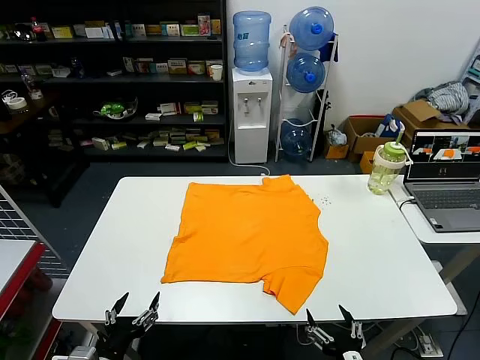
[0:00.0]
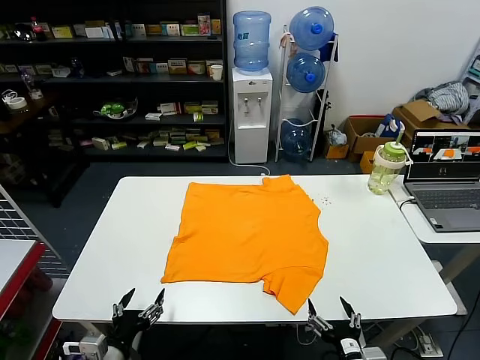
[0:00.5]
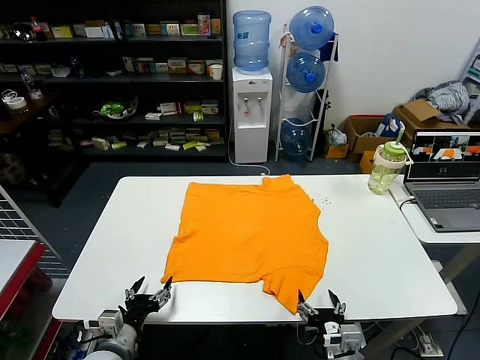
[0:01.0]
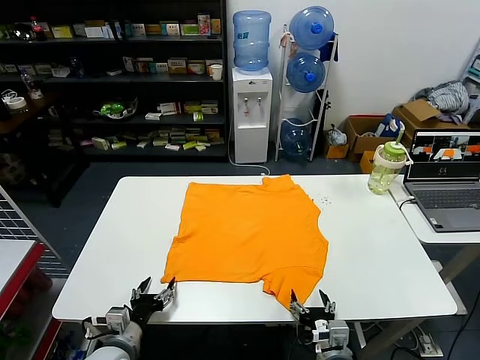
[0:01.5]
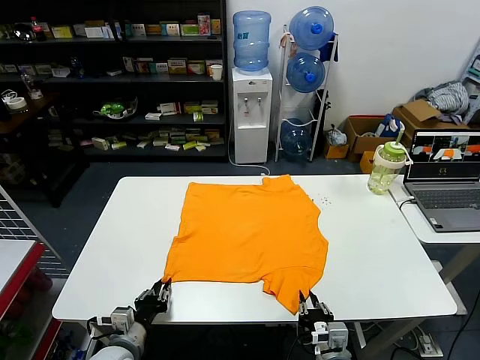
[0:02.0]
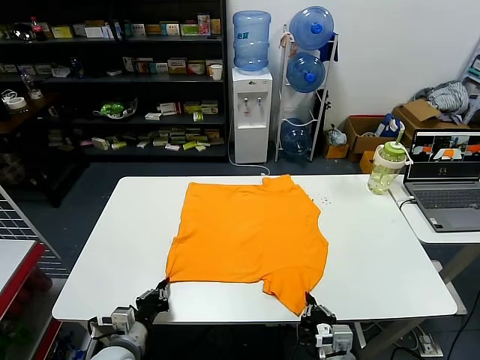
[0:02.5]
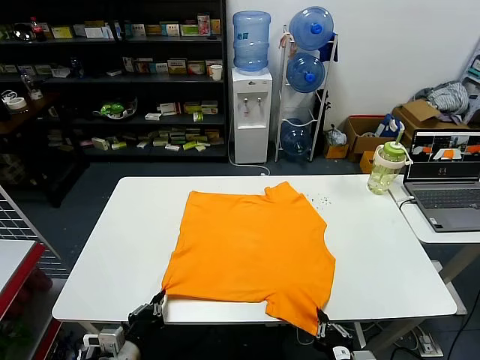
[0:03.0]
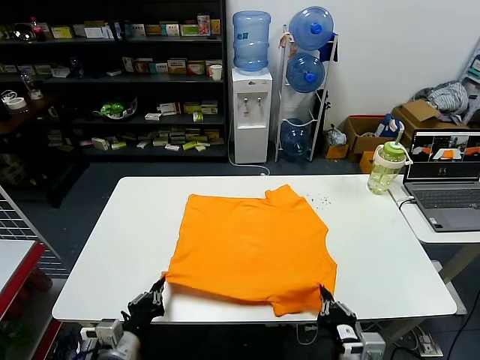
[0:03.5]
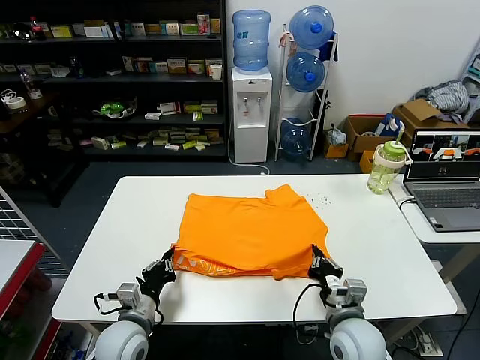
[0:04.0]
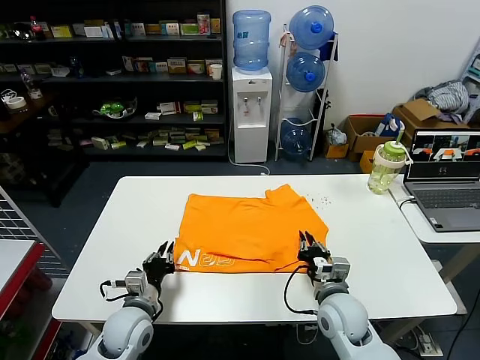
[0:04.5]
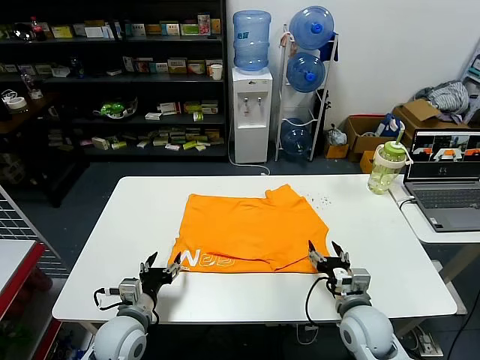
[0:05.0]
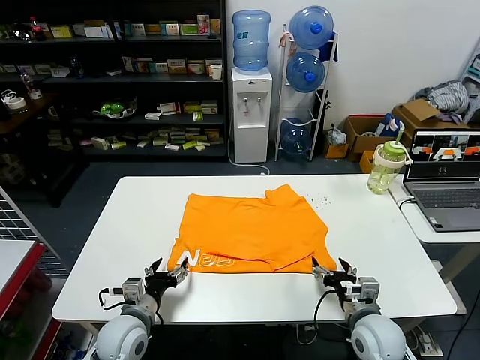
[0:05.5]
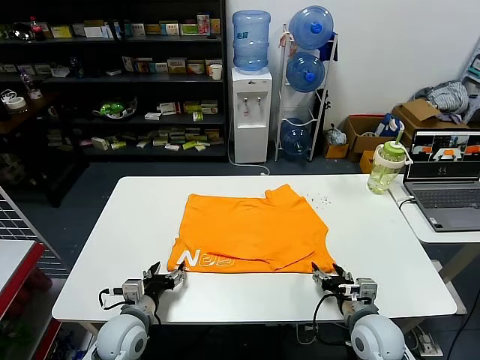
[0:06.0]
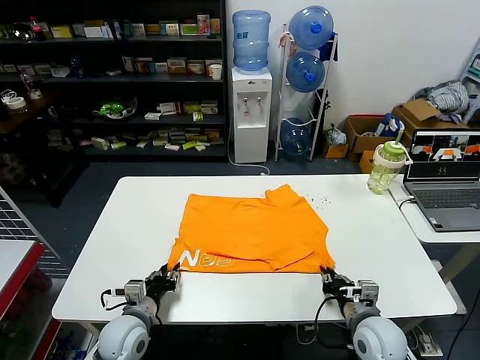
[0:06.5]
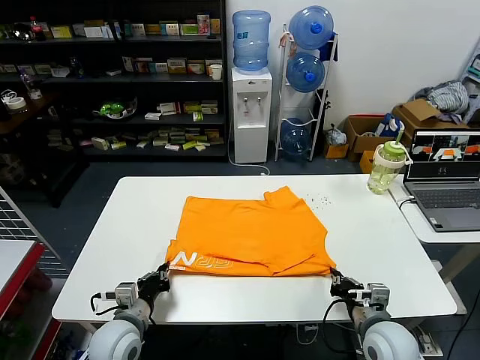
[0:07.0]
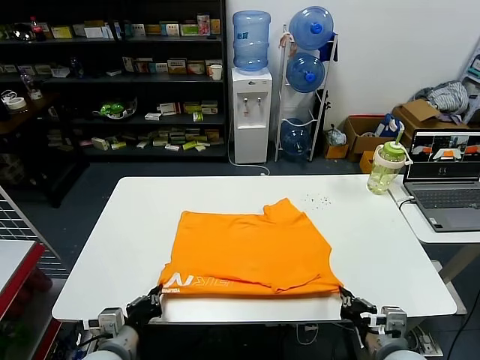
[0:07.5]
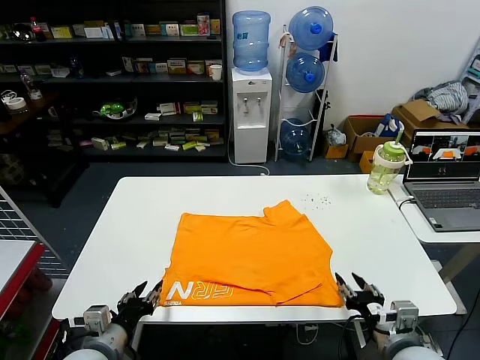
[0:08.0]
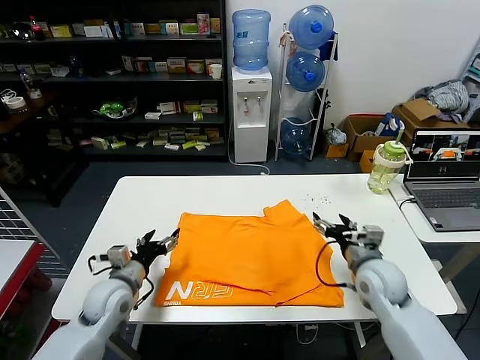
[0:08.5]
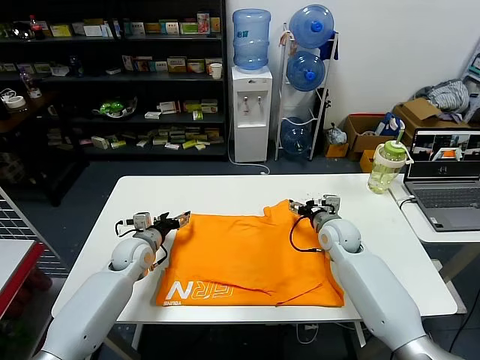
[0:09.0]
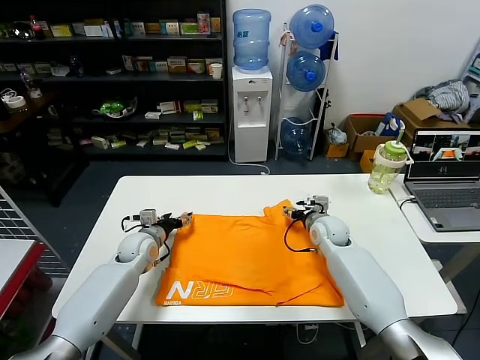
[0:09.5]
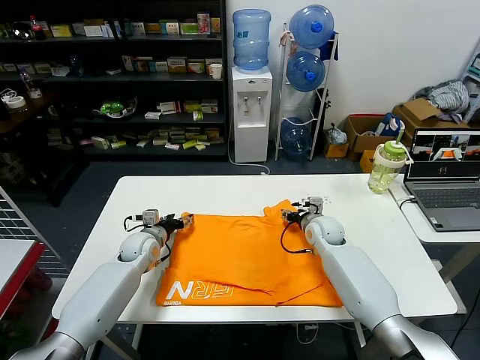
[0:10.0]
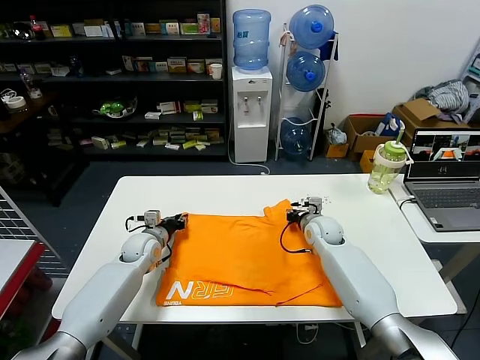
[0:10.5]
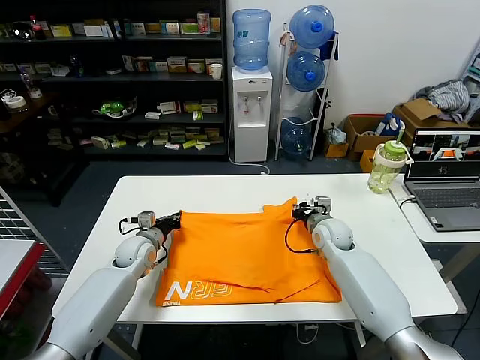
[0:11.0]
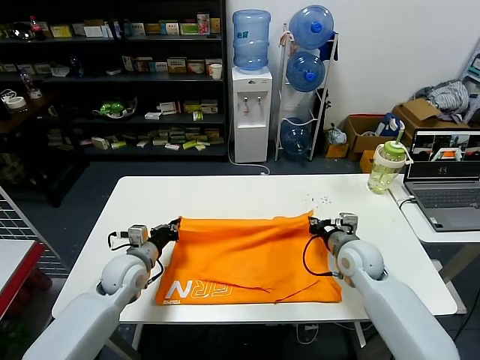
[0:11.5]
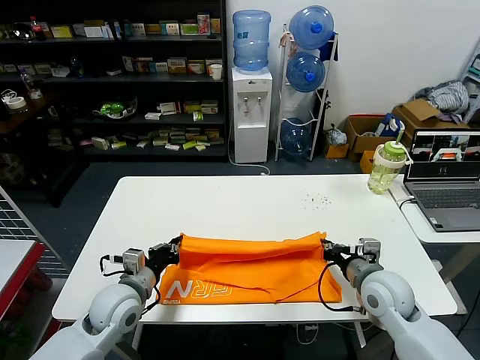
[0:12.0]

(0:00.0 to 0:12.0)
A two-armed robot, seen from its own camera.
Task of the whole recording: fold and organize the clothes.
Step, 0:00.0 - 0:02.0: use both grippers simultaneously to clamp the lower edge of the clothing fabric.
Step, 0:02.5 - 0:04.5: use both grippers to drag the lower edge of the fabric forward and fold it over the upper edge.
Step, 0:05.0 - 0:07.5: Drag the clothes downward with both gripper.
Step, 0:08.0 - 0:10.5: use both grippers simultaneously to clamp the upper edge of the clothing fabric.
0:02.0 - 0:04.0: The left gripper changes place by roughly 5 cm; the right gripper moves forward and upward, some 10 cm.
0:04.0 - 0:06.0: The right gripper travels to the right by approximately 5 cm, and opens, while the left gripper opens its fingers.
0:06.0 - 0:08.0: The right gripper shifts about 10 cm upward and backward, and closes, then reopens. The left gripper travels backward and upward by roughly 10 cm, and closes.
0:08.0 - 0:10.0: Both grippers move forward, some 30 cm.
0:10.0 - 0:12.0: Both grippers move backward, approximately 20 cm. The left gripper closes up. Meanwhile the right gripper closes up.

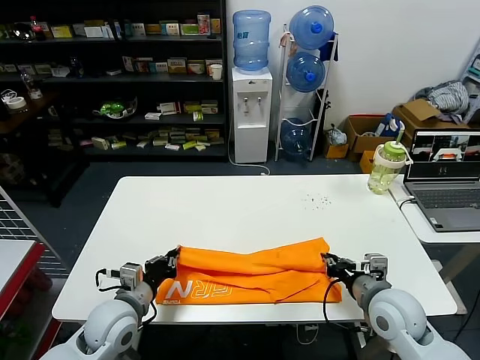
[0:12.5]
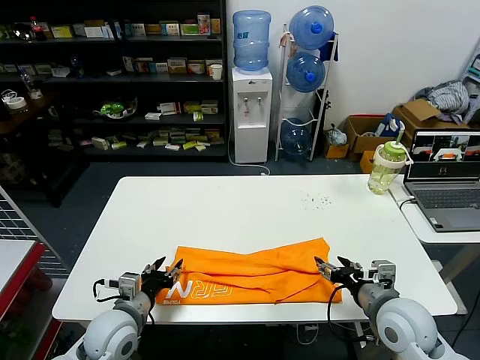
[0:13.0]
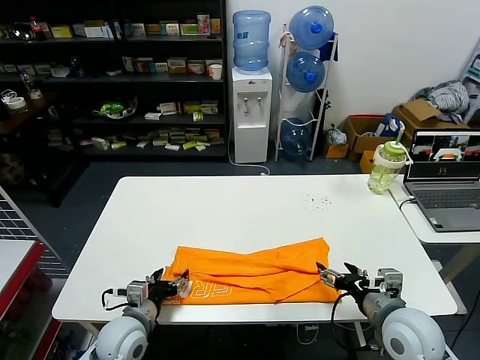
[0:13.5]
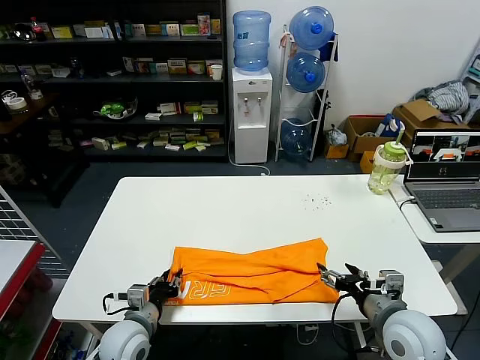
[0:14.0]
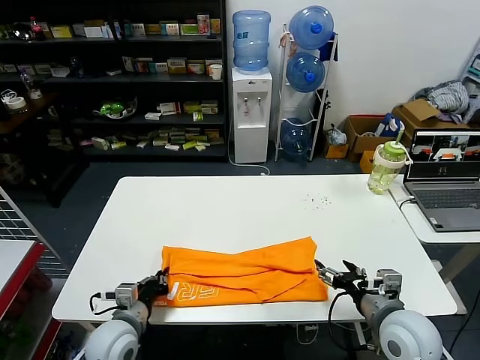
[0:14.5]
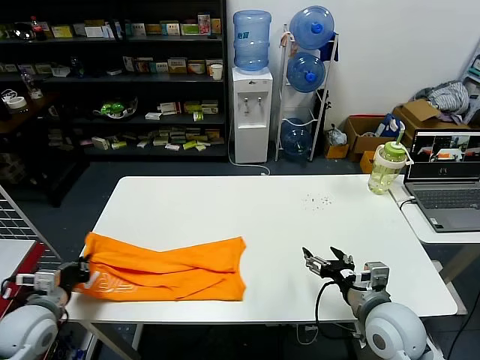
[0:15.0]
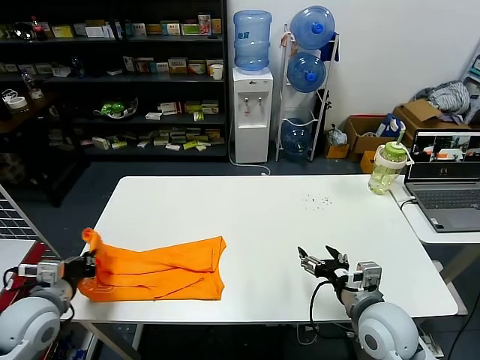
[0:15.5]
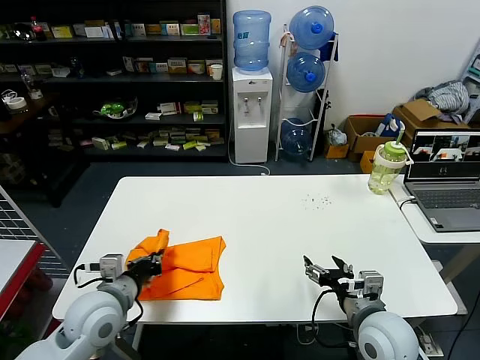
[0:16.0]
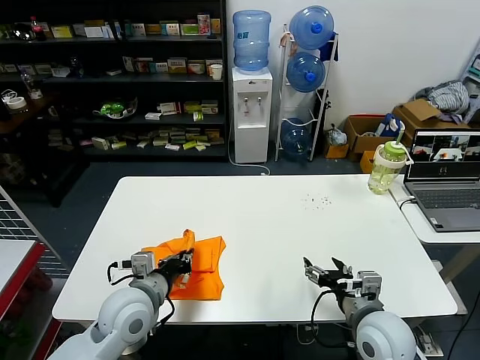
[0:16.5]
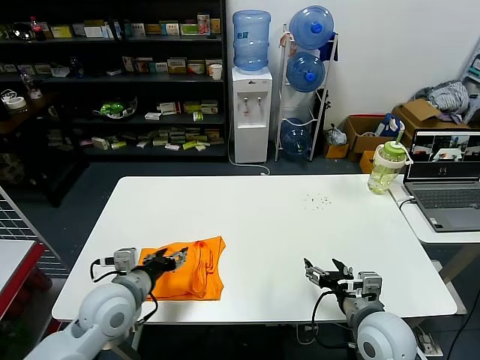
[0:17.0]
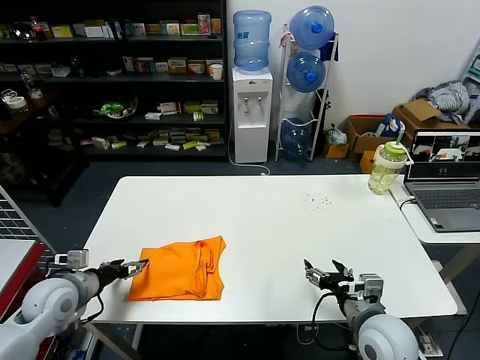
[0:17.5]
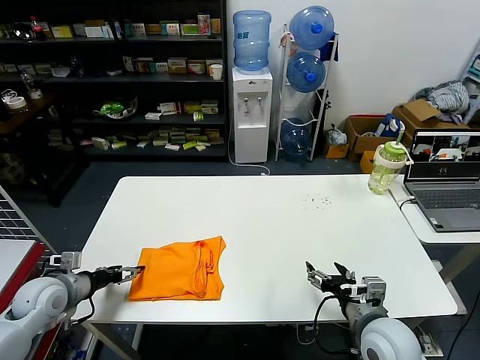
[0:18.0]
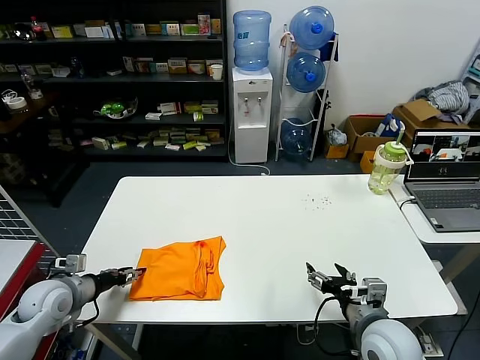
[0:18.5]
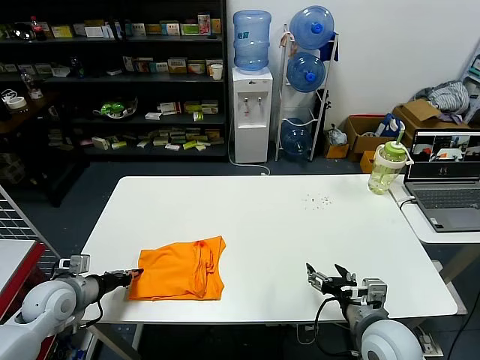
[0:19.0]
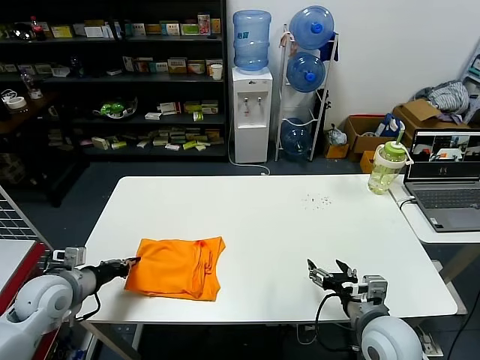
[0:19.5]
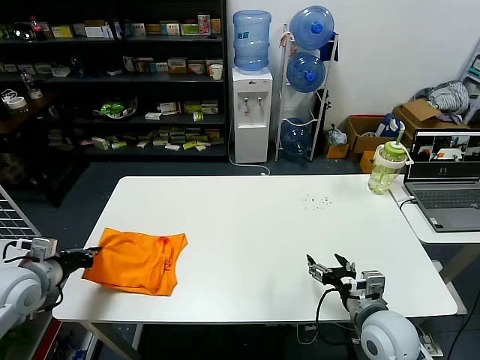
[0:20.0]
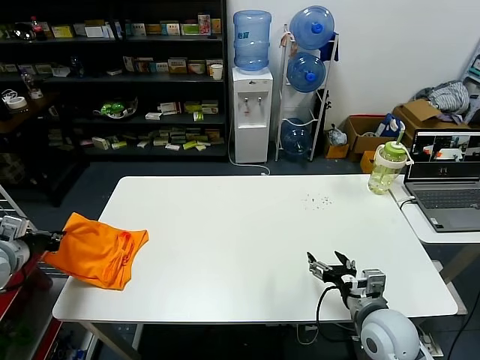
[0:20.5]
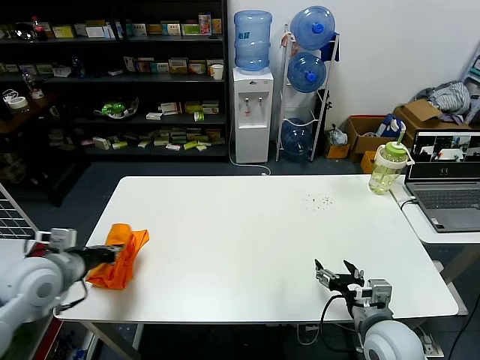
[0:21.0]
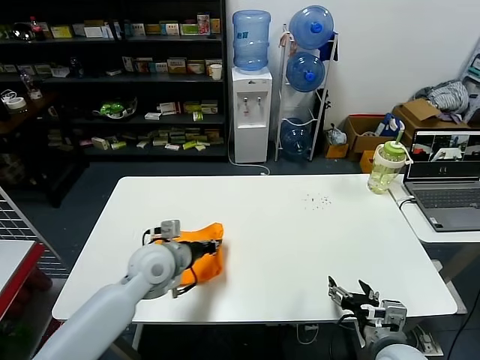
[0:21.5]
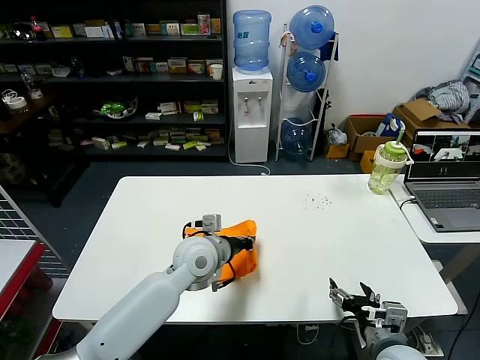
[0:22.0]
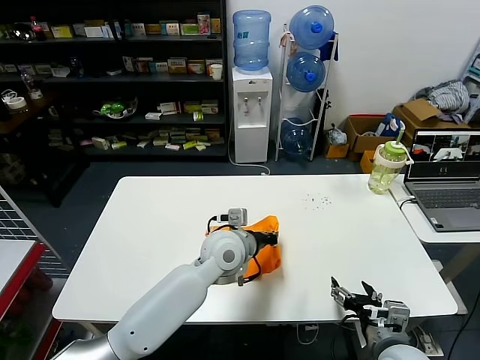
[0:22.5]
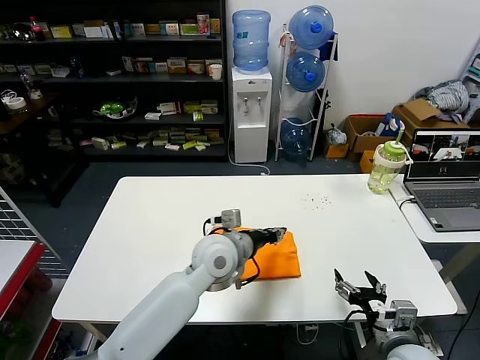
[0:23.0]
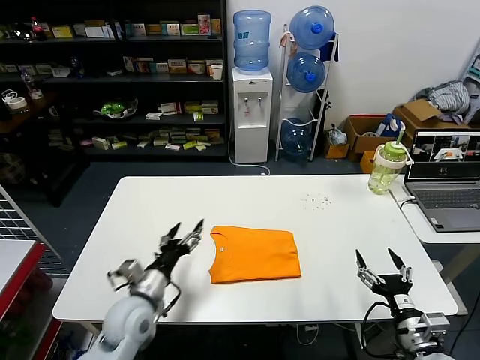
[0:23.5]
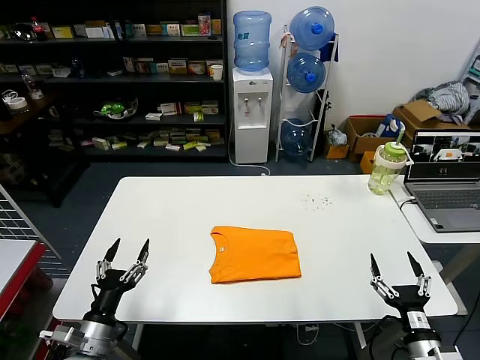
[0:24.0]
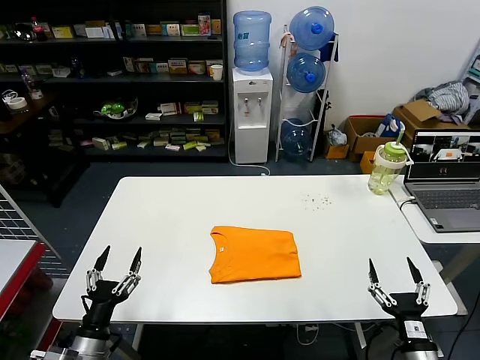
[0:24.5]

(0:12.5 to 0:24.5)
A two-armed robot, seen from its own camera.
Task of the whole recording: fold and organize the clothes.
Step, 0:13.0 - 0:14.0: use the left gripper to clamp the left edge of the fabric.
Step, 0:14.5 - 0:16.5: use the left gripper to drag the left edge of the fabric to the left and folds it over the right edge.
Step, 0:17.0 - 0:22.5: Flip the folded clothes over with left gripper.
0:12.5 - 0:14.5: The left gripper shifts by approximately 5 cm, and opens, then closes once more. The right gripper opens.
0:14.5 - 0:16.5: The left gripper shifts approximately 10 cm upward, and reaches about 15 cm to the left, then returns.
0:16.5 - 0:18.5: The left gripper shifts about 20 cm to the left, and opens its fingers.
0:18.5 - 0:20.5: The left gripper goes roughly 15 cm upward and to the left, and closes up.
0:20.5 - 0:22.5: The right gripper travels backward by some 5 cm, while the left gripper goes approximately 50 cm to the right.
0:22.5 - 0:24.5: The left gripper is displaced to the left, backward and downward by some 40 cm, and opens up. Meanwhile the right gripper moves to the right, downward and backward, some 10 cm.
